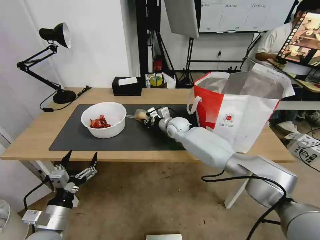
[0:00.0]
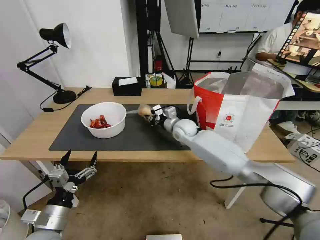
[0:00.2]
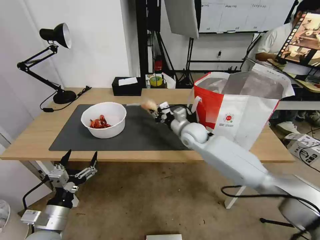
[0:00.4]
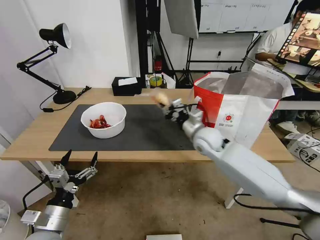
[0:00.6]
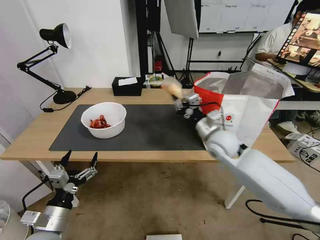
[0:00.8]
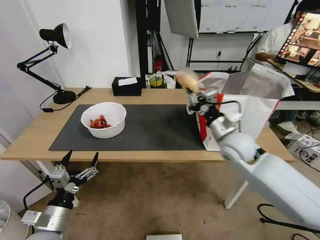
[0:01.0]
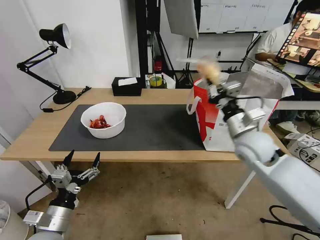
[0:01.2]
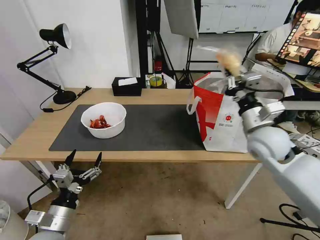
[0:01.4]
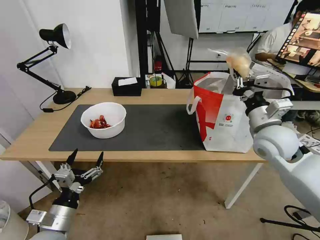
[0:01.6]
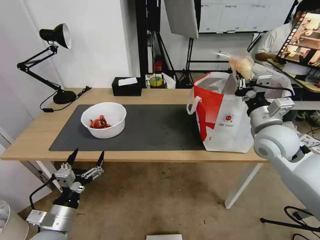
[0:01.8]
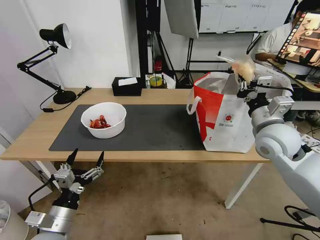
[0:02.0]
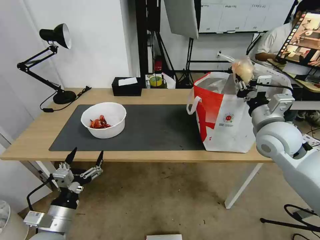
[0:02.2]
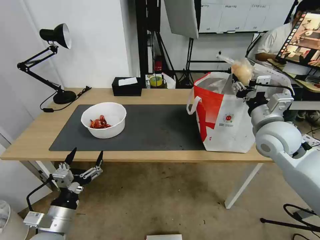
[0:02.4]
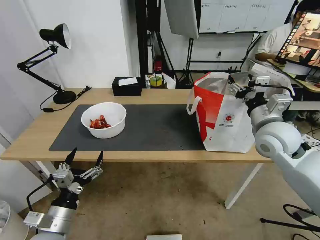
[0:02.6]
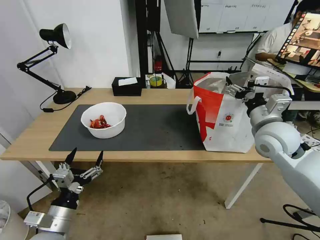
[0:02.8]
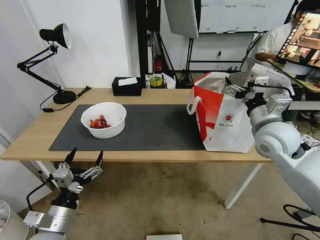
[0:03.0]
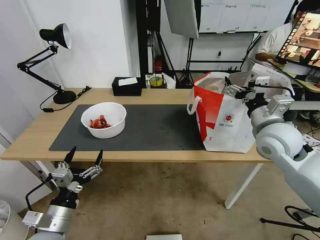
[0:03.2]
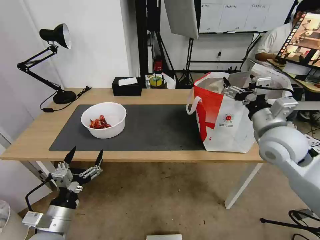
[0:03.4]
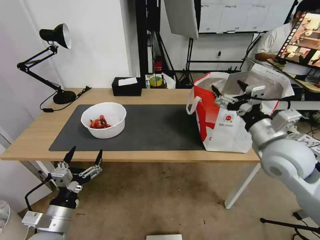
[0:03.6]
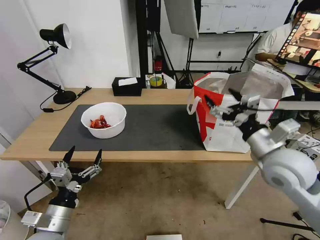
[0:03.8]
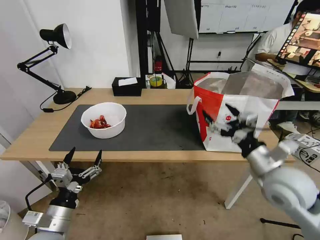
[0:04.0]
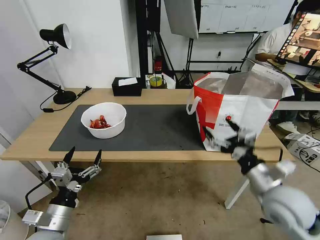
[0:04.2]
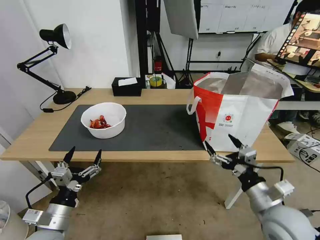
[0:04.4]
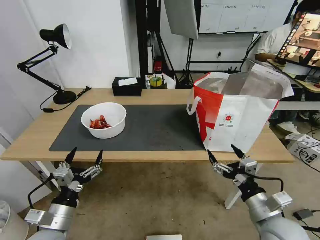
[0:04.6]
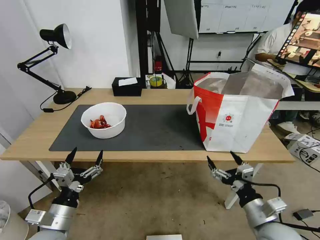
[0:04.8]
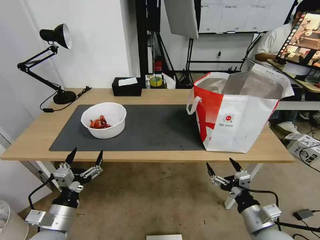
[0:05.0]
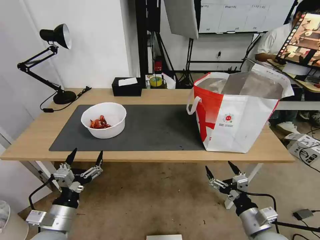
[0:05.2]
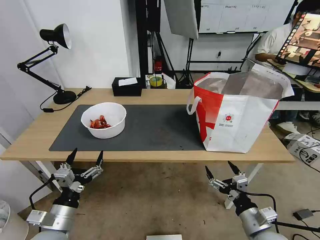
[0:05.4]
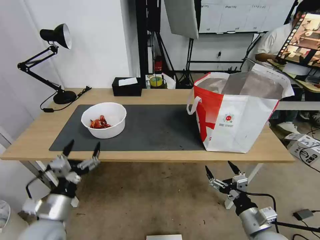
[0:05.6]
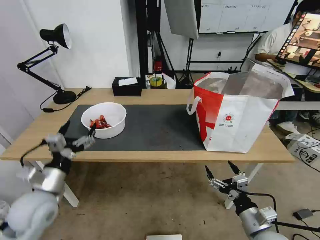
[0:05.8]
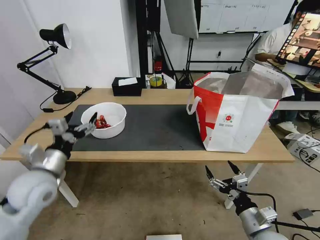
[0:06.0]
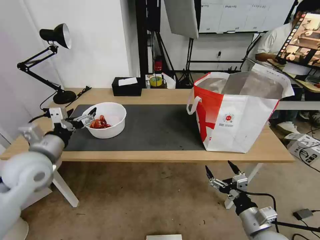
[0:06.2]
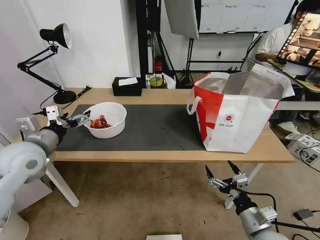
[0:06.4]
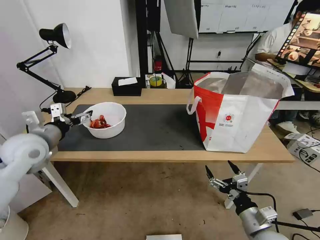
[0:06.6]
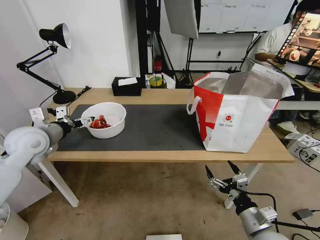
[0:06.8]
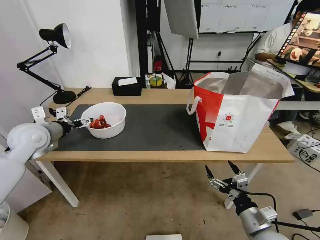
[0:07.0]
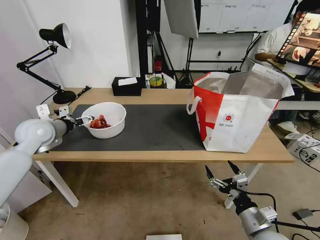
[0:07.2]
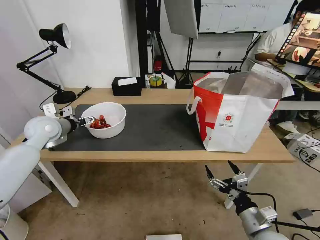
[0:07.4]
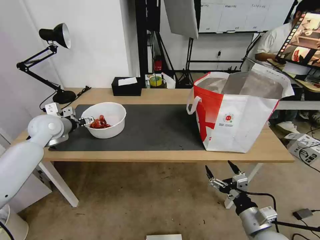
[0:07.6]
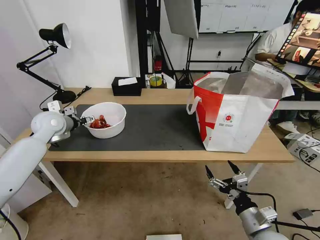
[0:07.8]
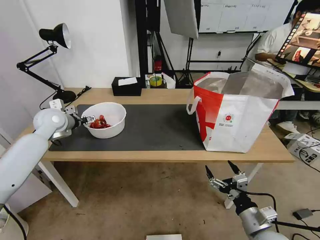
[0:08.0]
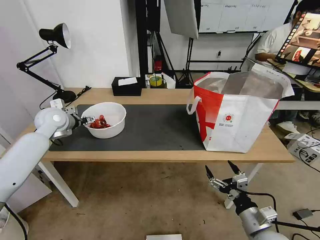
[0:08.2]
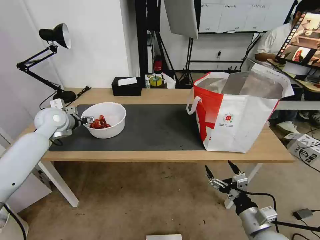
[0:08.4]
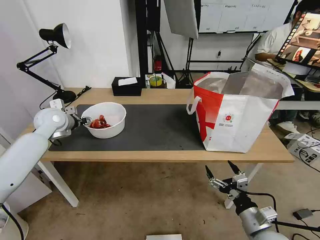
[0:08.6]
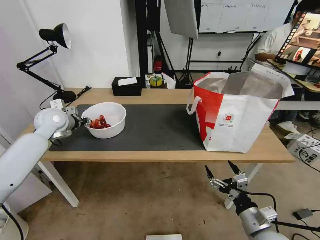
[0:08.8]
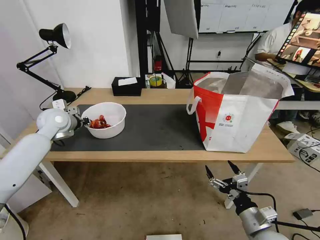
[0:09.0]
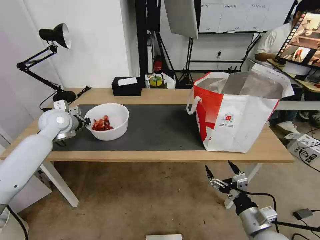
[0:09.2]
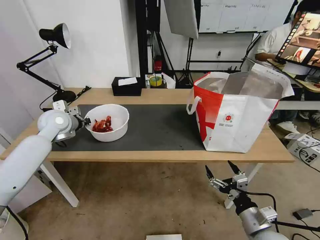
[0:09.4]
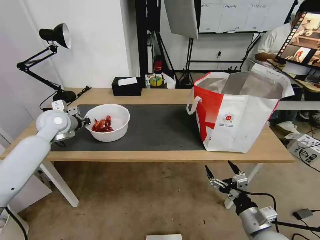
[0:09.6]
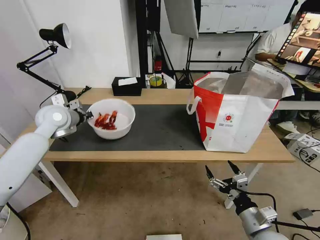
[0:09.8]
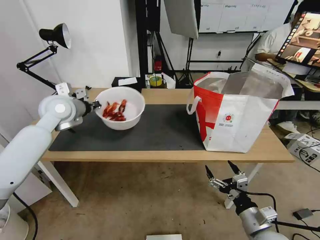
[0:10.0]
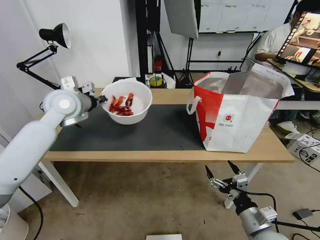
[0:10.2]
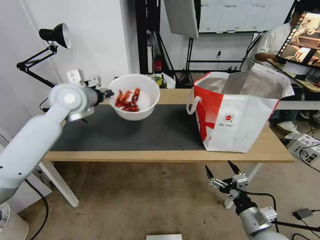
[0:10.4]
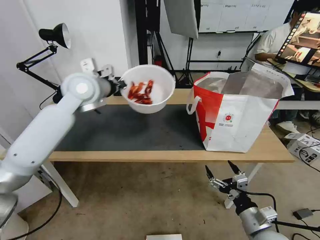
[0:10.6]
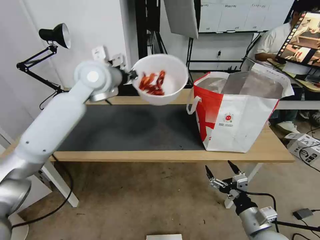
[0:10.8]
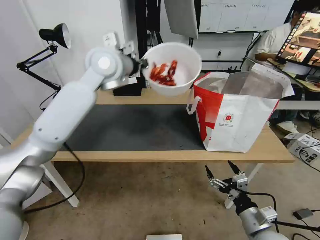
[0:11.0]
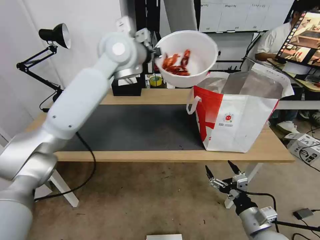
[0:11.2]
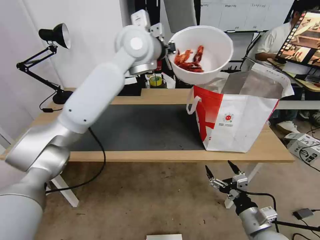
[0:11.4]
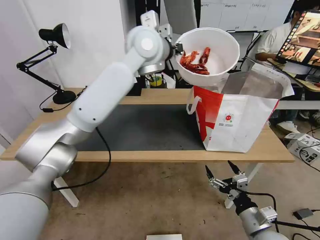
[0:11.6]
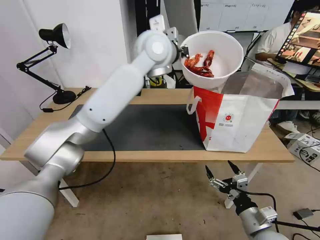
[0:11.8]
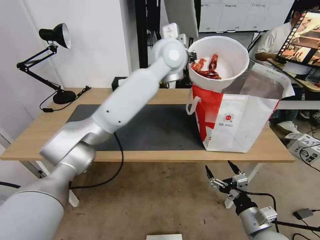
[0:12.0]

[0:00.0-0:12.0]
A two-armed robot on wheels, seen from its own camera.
Task of the whole recording: Pick up the trash from the table and place it into the takeout bag.
0:00.0 to 0:01.6: The right gripper heads to the right, backward and upward, covering roughly 35 cm.
0:01.6 to 0:03.0: The right gripper opens its fingers.
0:03.0 to 0:04.4: The right gripper shifts about 20 cm backward and downward.
0:04.4 to 0:06.0: The right gripper heads downward, covering roughly 10 cm, while the left gripper goes about 15 cm forward and upward.
0:06.0 to 0:07.6: The left gripper travels forward by about 20 cm.
0:07.6 to 0:09.0: The left gripper closes.
0:09.0 to 0:10.4: The left gripper is displaced upward and to the right by some 15 cm.
0:10.4 to 0:12.0: The left gripper is displaced to the right by some 25 cm.

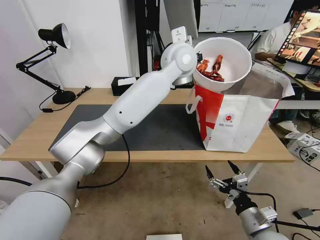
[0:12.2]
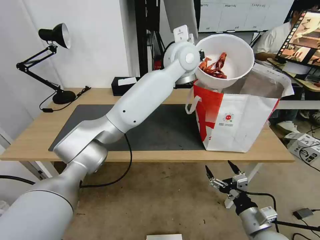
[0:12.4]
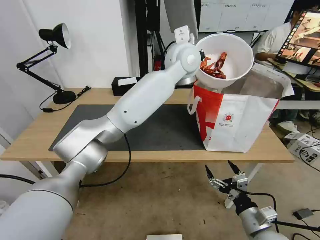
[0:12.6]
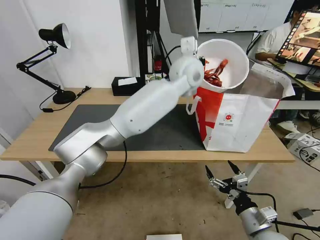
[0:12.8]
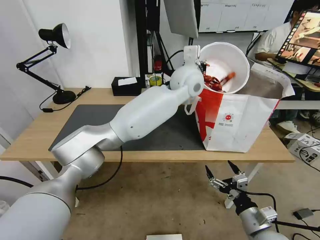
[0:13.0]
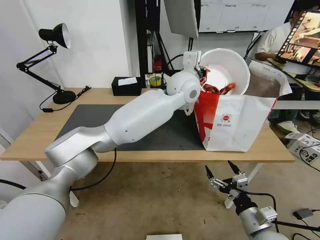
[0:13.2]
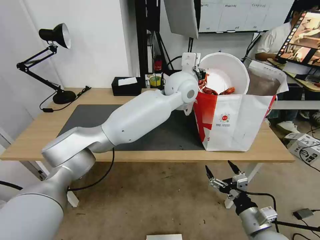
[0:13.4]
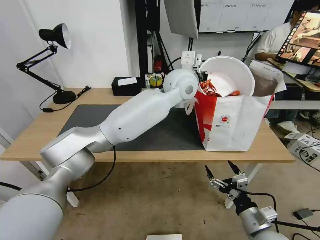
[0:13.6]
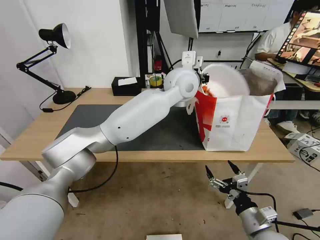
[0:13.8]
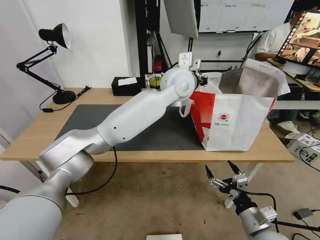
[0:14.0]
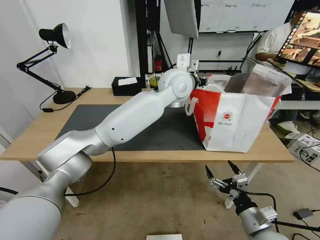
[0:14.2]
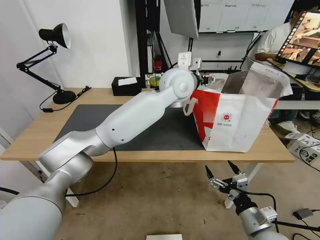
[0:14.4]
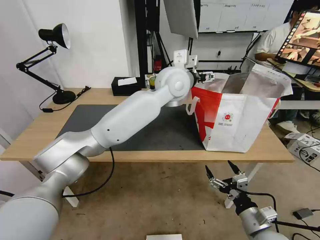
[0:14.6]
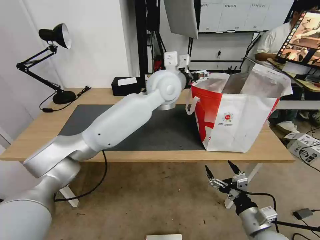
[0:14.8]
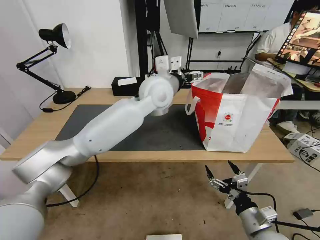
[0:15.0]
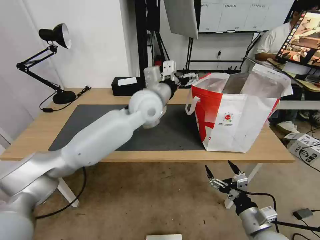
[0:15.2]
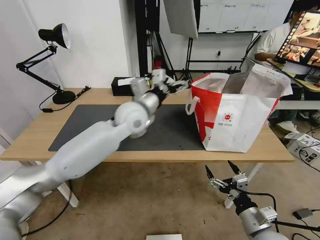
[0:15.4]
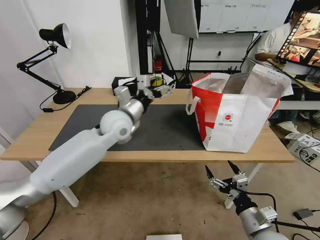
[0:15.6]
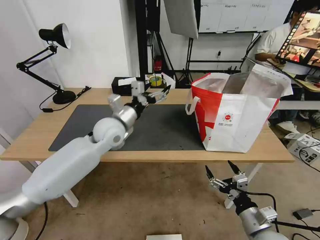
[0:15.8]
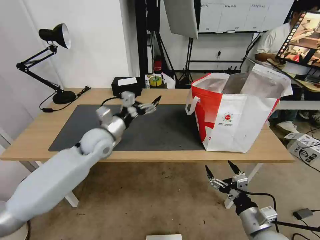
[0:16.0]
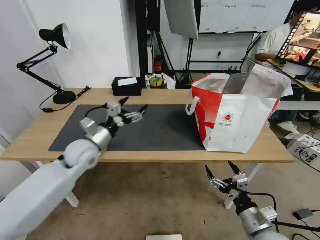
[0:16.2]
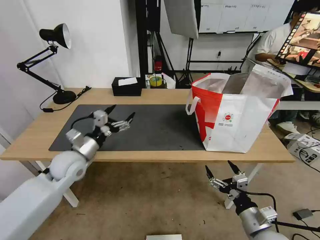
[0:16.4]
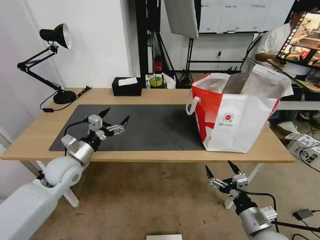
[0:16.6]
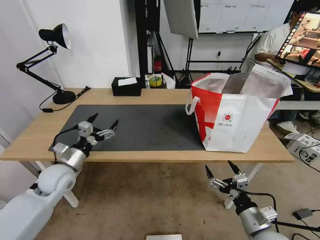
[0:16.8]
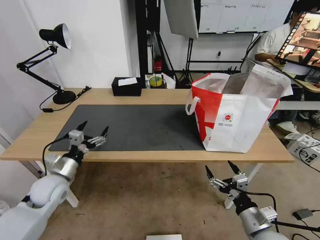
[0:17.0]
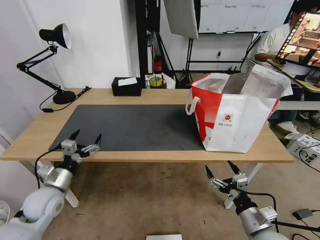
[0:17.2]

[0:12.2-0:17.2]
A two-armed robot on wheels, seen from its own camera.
Task of the whole recording: Pick up the trash from the table and place it into the takeout bag.
0:12.2 to 0:13.8: The left gripper is displaced downward by roughly 5 cm.
0:13.8 to 0:15.6: The left gripper moves to the left and downward, roughly 20 cm, and opens.
0:15.6 to 0:17.2: The left gripper is displaced to the left, backward and downward by approximately 30 cm.
